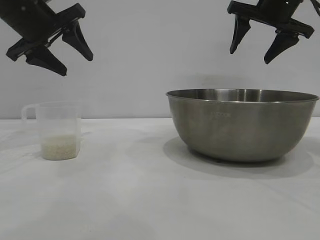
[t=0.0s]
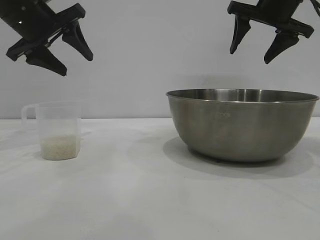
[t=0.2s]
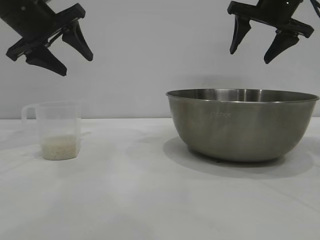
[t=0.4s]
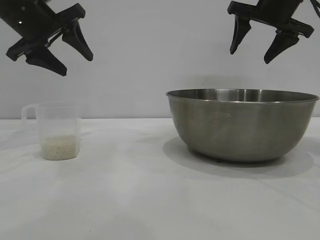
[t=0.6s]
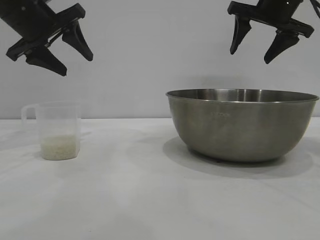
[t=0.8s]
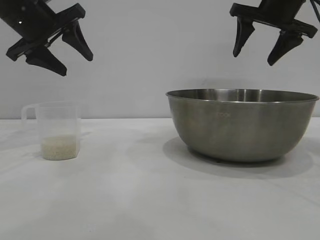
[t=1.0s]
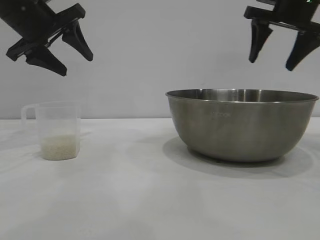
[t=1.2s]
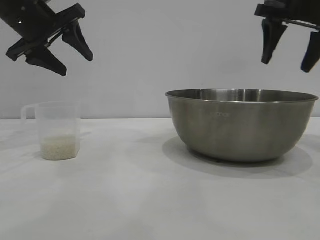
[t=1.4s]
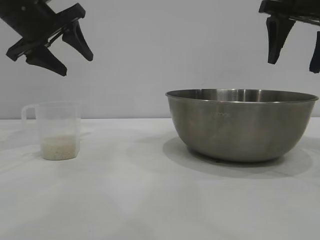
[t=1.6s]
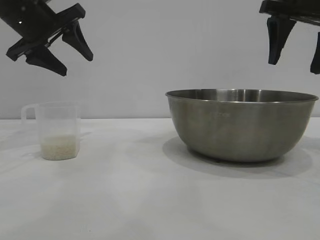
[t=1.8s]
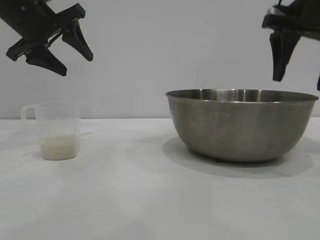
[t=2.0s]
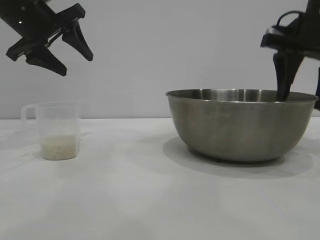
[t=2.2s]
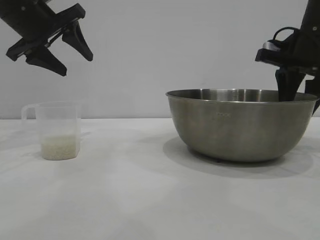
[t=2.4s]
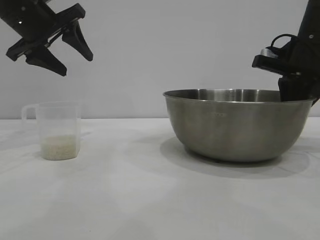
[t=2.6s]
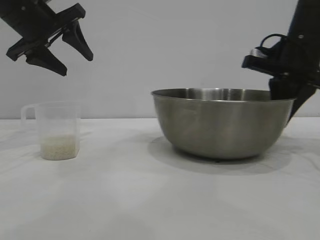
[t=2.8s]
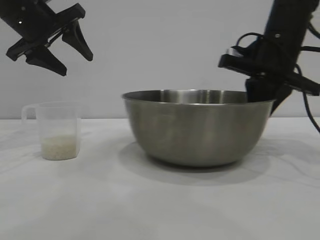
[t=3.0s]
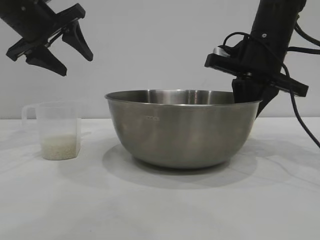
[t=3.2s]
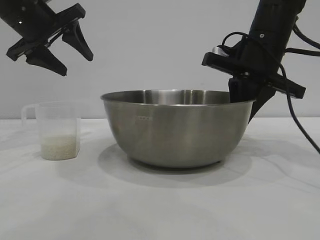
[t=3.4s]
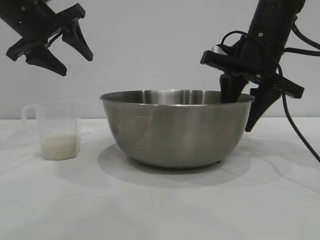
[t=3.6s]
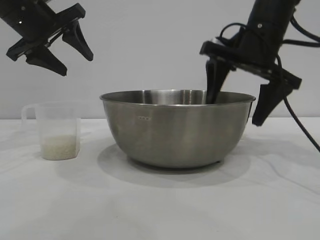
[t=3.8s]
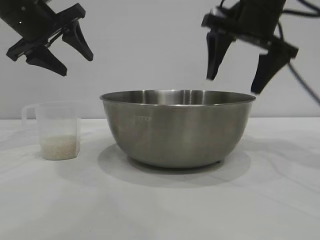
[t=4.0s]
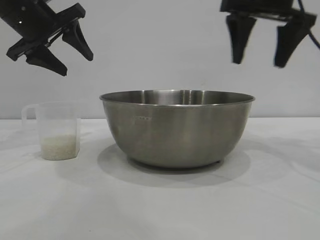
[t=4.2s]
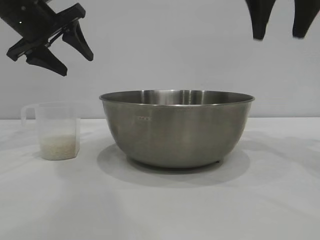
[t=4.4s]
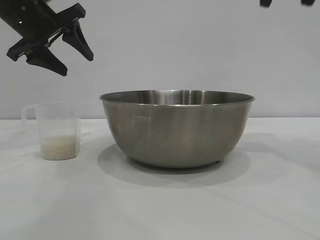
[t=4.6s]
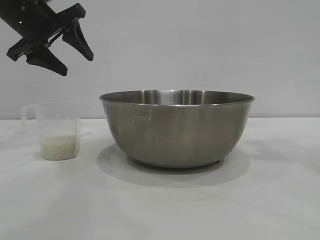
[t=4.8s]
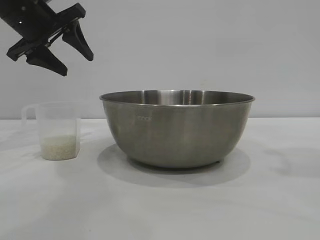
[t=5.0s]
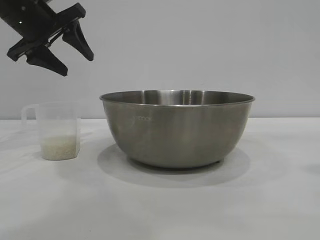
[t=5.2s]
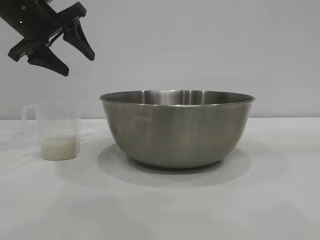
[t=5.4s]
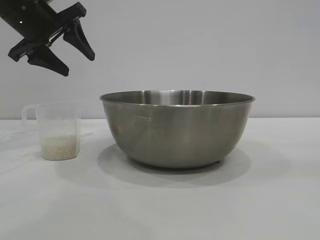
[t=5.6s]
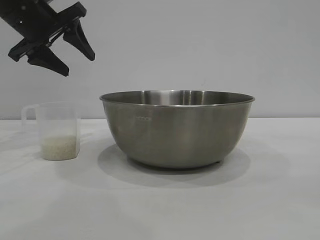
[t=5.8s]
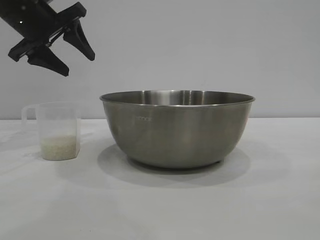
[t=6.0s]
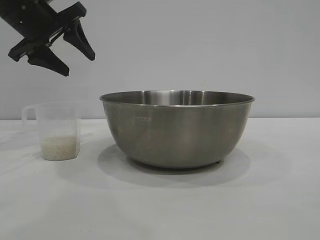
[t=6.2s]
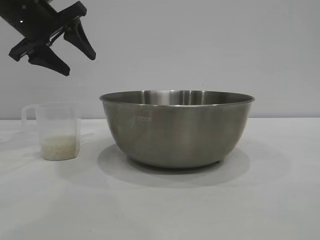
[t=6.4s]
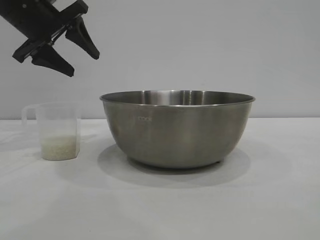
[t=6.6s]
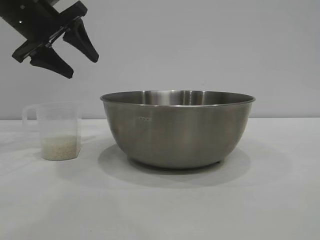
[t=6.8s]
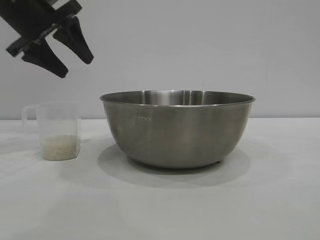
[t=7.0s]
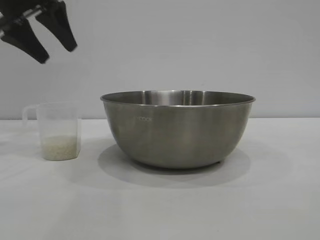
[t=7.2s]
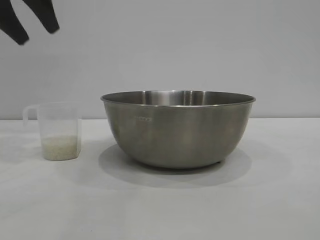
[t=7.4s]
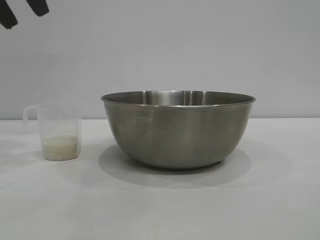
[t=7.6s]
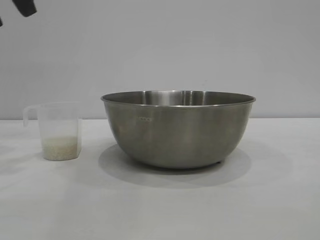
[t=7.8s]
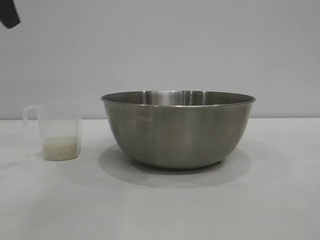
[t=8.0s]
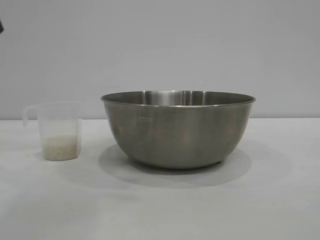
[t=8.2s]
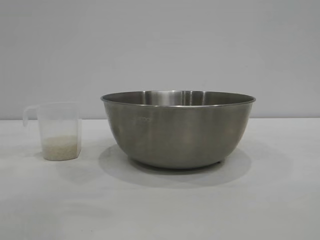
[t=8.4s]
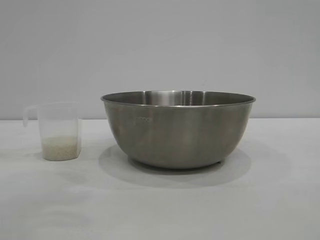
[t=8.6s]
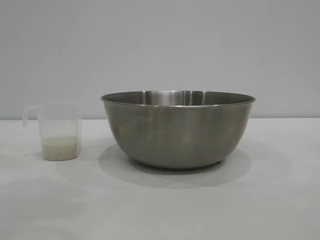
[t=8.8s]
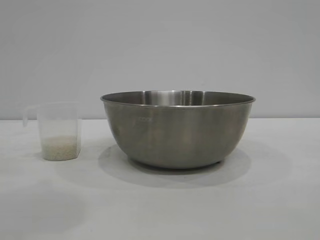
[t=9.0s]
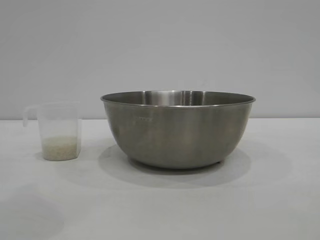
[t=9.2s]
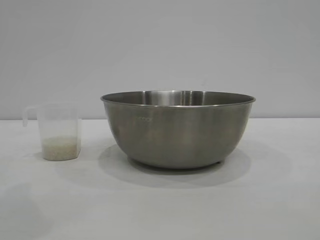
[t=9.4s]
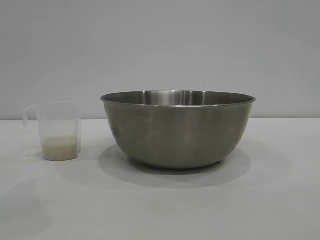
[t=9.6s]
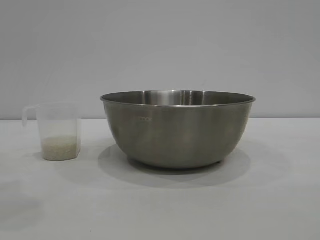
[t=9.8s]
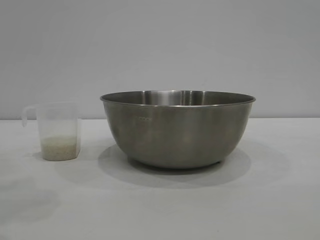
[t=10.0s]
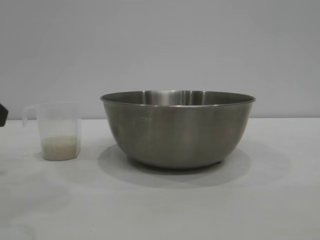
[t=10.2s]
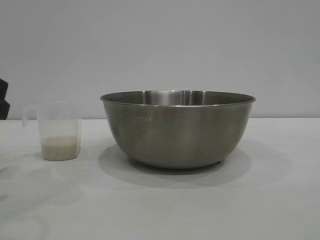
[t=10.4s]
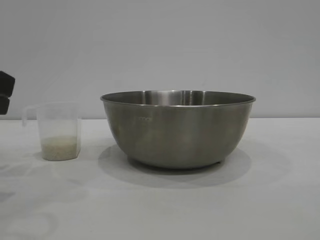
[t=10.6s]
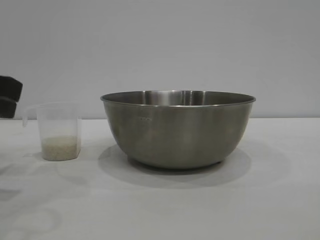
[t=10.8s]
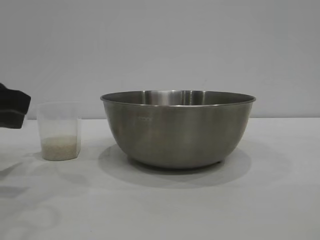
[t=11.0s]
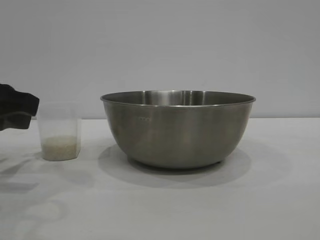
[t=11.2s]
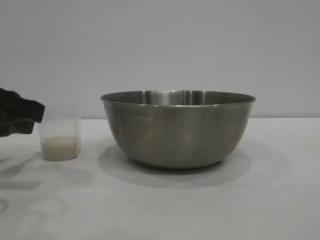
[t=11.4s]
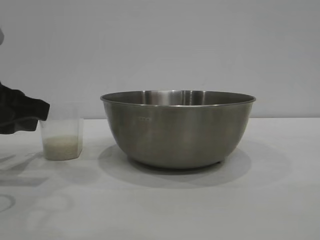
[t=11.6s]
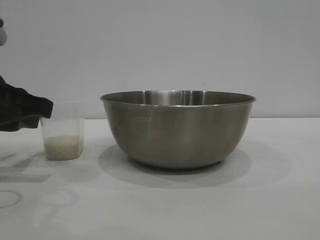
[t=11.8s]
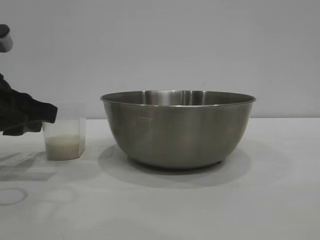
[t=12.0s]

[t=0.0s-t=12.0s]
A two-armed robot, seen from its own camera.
Task of the whole recording: the right gripper grasp the rice container and place it in the center of the table, the left gripper grasp the rice scoop and pour the rice into the rice container.
Step, t=0.0s to t=4.0s: Move the bowl to the center of view with the right gripper.

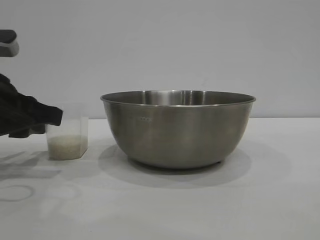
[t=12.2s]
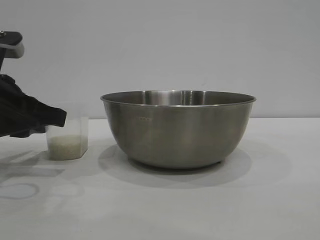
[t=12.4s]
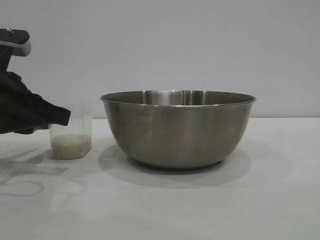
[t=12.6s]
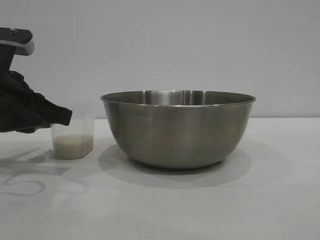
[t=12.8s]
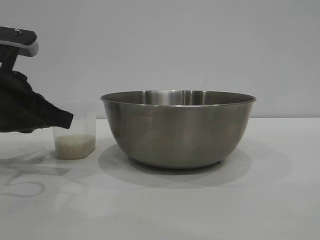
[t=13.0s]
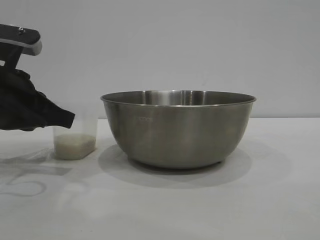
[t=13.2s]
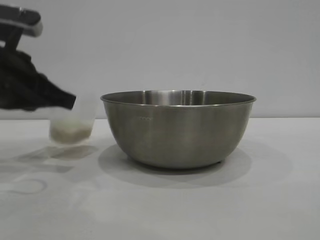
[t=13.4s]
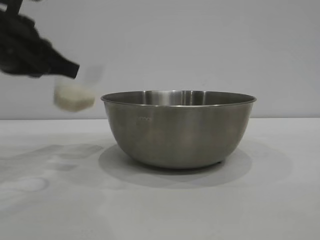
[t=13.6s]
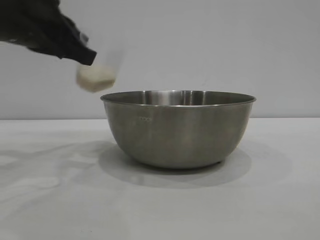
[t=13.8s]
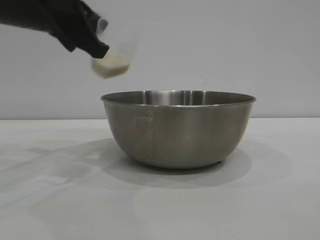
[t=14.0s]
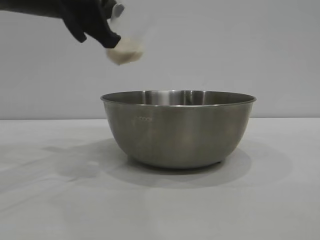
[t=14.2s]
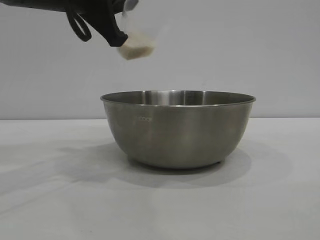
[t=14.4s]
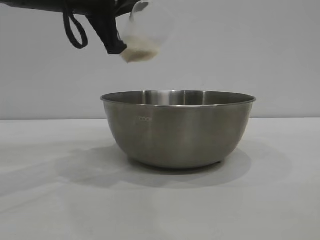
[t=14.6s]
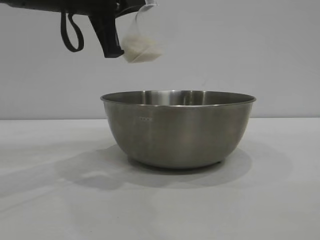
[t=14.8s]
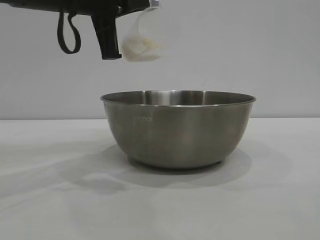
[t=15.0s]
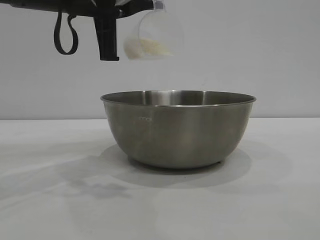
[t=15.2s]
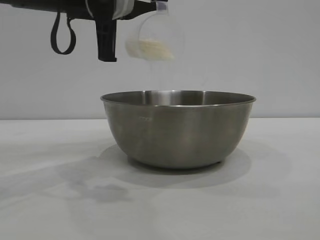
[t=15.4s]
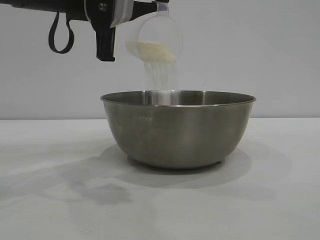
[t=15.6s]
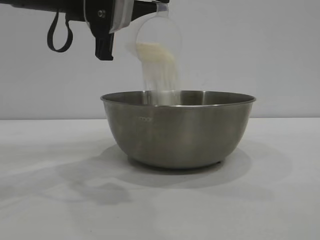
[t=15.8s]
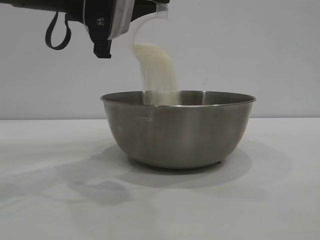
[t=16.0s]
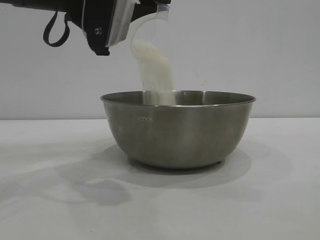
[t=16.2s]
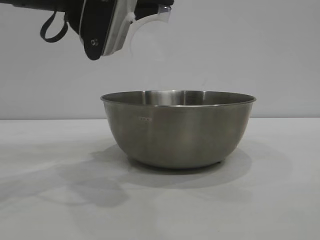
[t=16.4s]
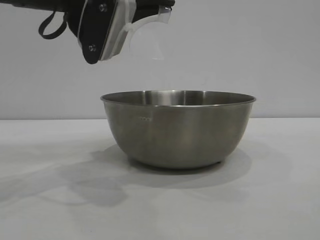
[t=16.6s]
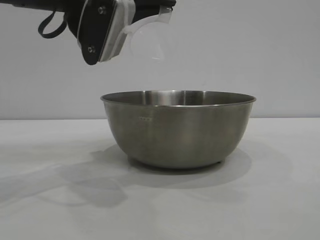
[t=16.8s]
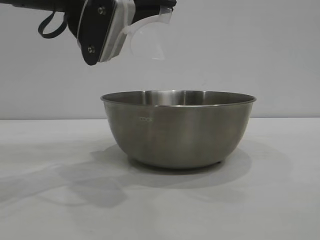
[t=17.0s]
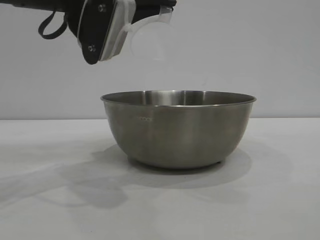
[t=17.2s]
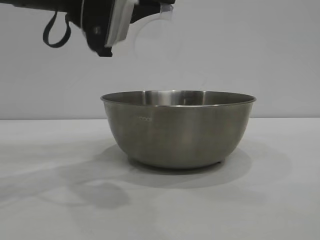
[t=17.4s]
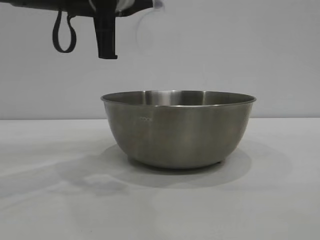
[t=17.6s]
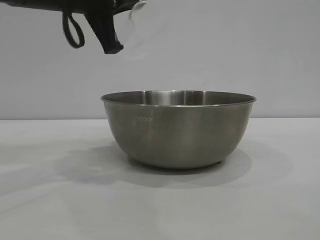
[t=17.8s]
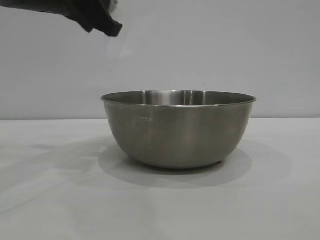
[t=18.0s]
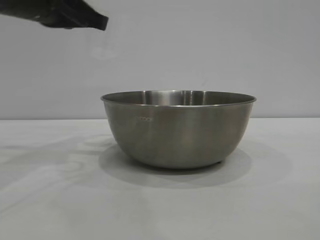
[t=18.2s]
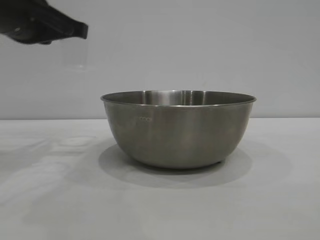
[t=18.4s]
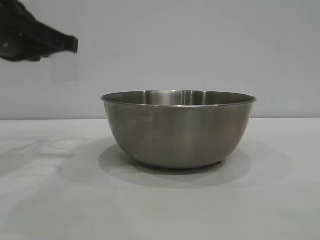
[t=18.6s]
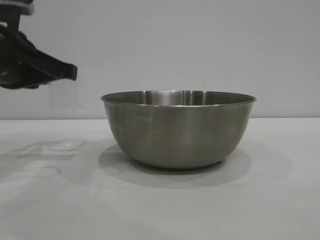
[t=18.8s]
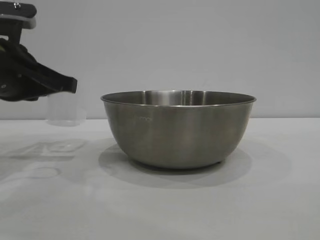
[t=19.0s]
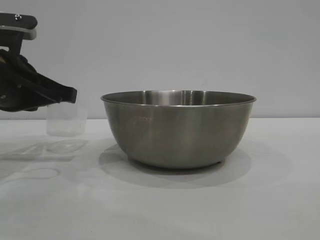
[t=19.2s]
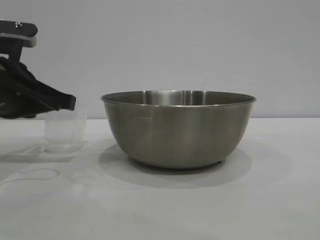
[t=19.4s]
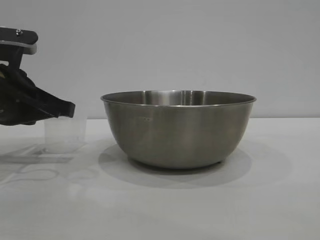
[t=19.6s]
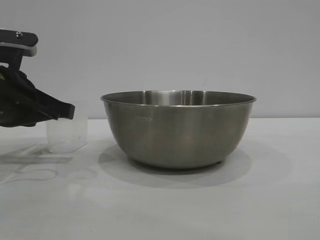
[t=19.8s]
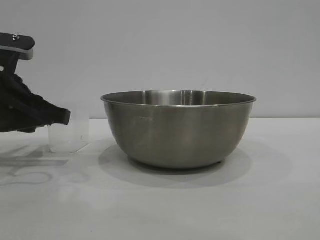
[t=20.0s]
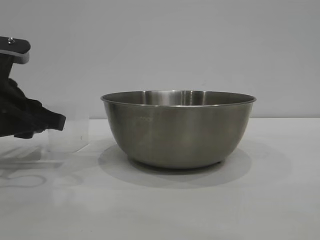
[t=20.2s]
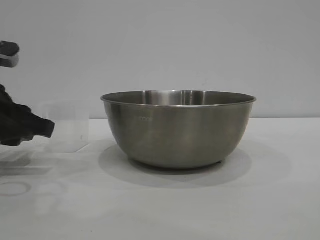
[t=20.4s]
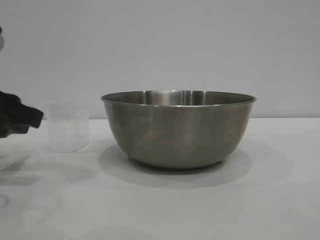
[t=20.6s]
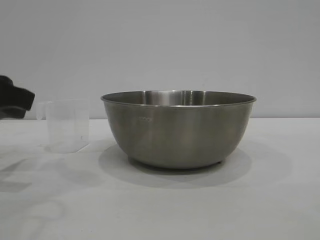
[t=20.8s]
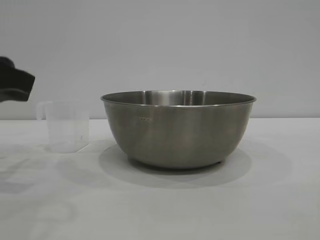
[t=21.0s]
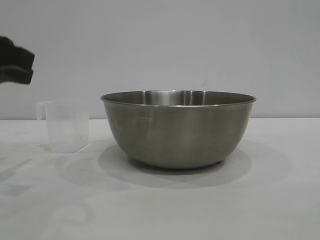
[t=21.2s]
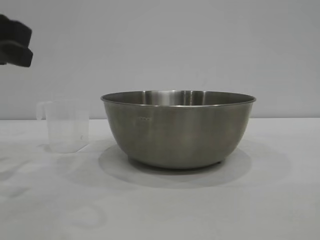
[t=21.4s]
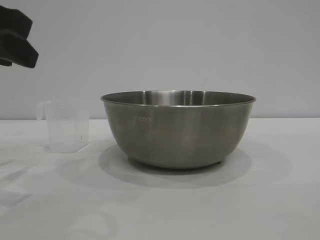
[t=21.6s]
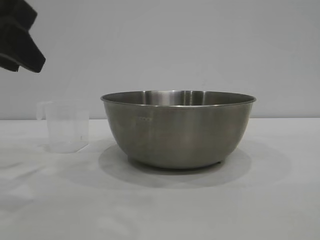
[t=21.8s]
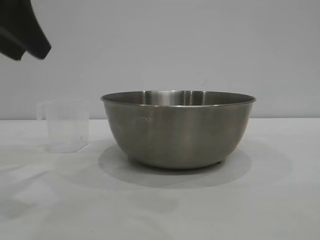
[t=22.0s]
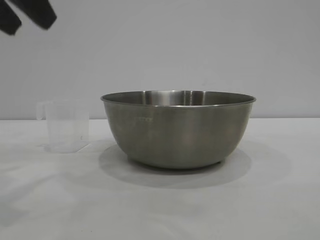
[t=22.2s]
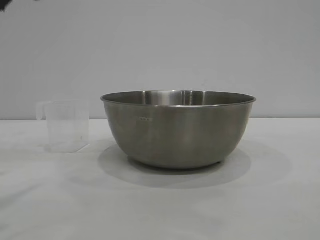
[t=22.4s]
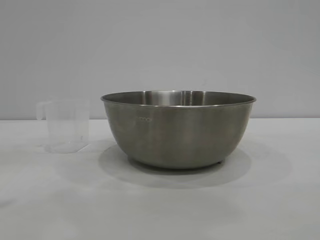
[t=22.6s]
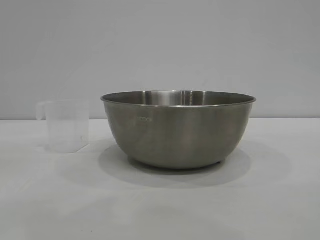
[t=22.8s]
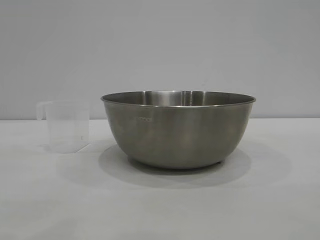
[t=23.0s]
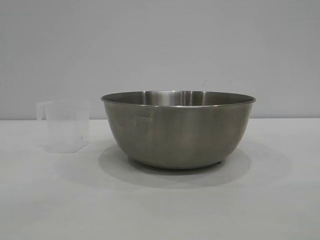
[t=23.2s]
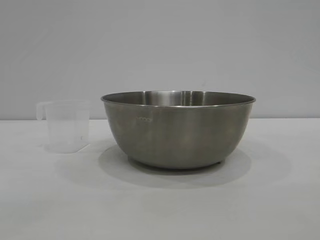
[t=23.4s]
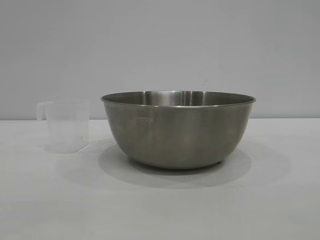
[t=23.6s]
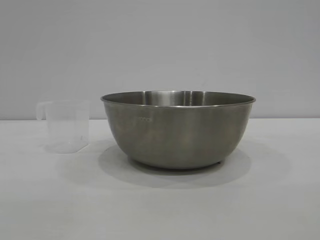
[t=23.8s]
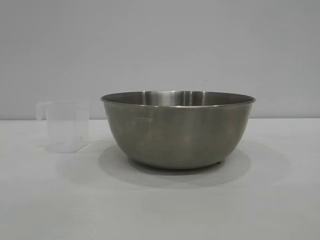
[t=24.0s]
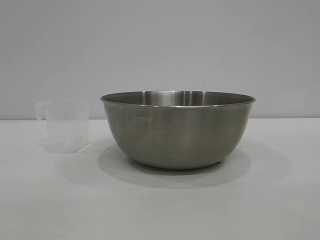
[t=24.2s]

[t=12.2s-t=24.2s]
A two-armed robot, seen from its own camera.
Task of the whole recording: the right gripper grasp the rice container and place it in the center of the table, the left gripper grasp the rice scoop and pour the rice into the rice container.
Step, t=13.6s to t=17.8s: Pour the rice from the cup into the bowl with the left gripper.
Step, t=18.2s to t=20.4s: Place the cup on the table with the left gripper.
